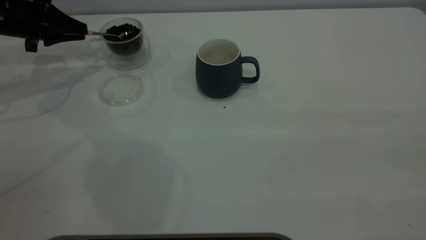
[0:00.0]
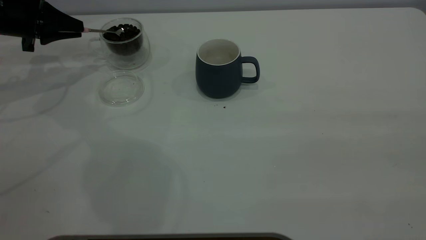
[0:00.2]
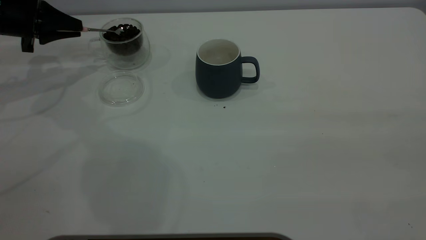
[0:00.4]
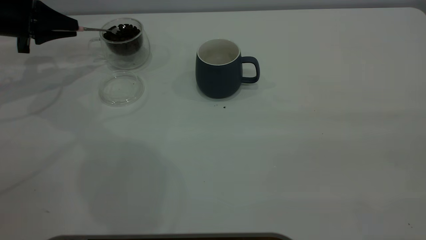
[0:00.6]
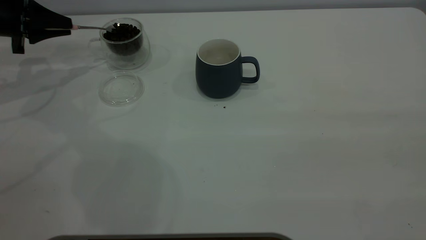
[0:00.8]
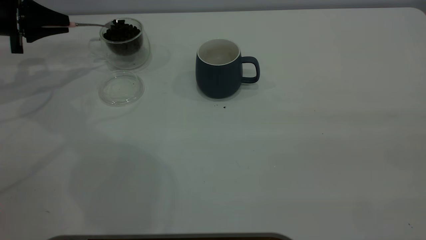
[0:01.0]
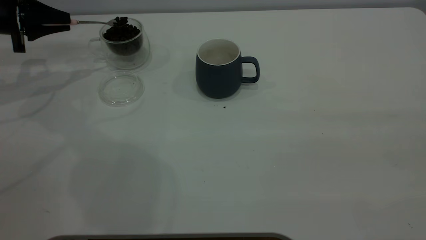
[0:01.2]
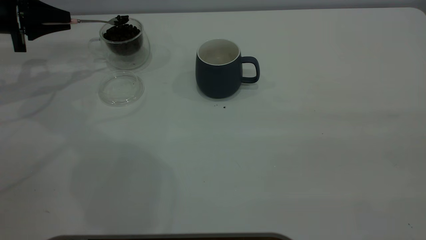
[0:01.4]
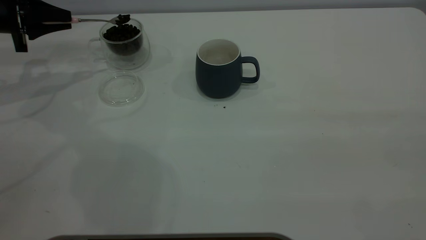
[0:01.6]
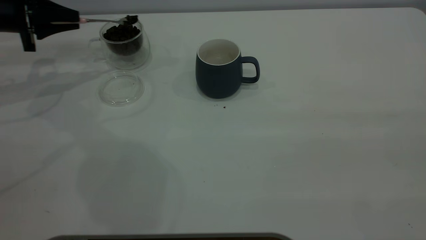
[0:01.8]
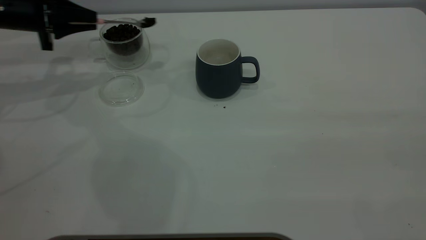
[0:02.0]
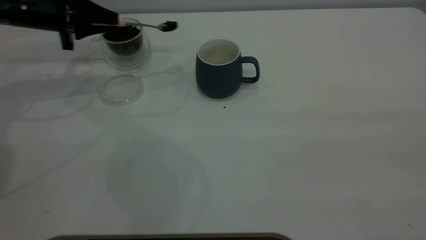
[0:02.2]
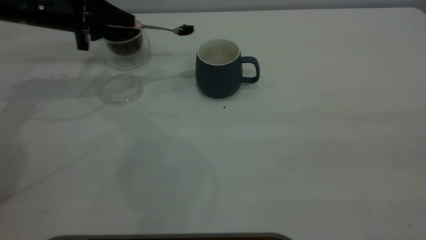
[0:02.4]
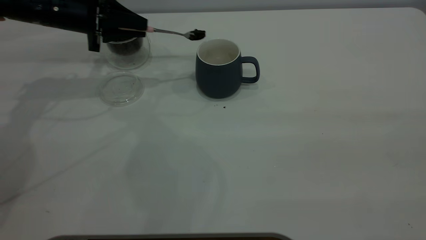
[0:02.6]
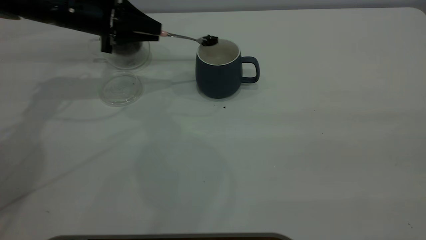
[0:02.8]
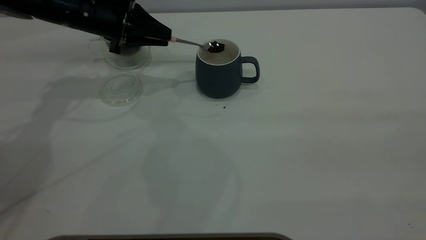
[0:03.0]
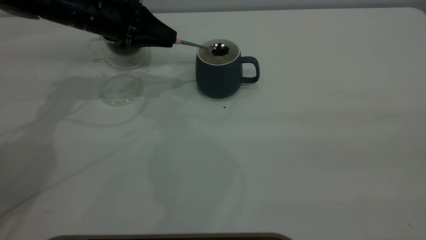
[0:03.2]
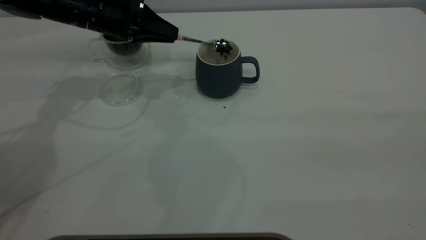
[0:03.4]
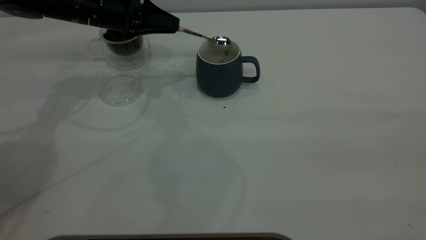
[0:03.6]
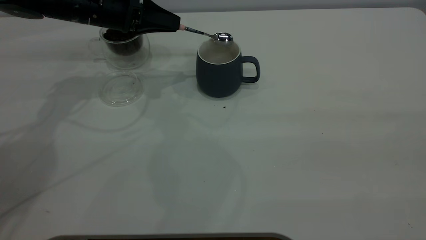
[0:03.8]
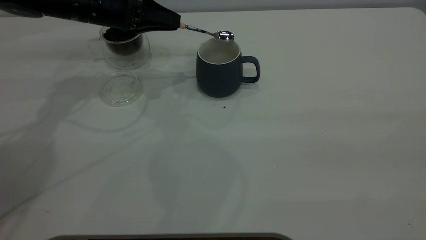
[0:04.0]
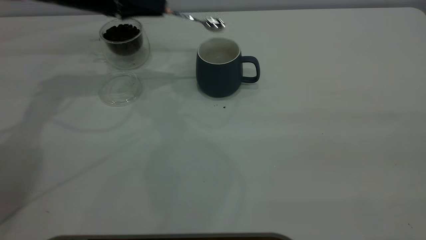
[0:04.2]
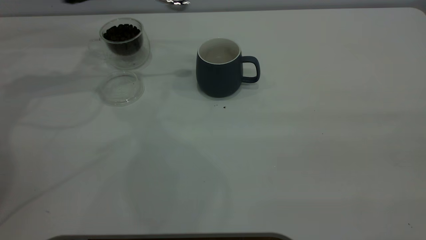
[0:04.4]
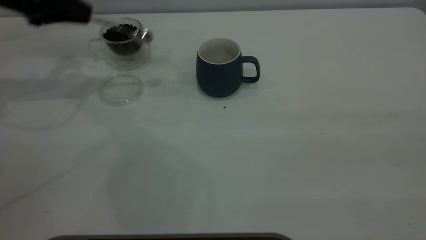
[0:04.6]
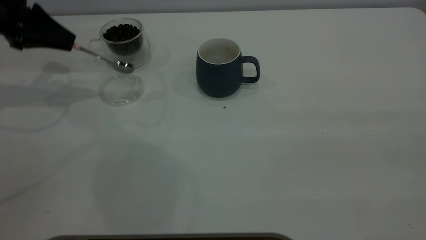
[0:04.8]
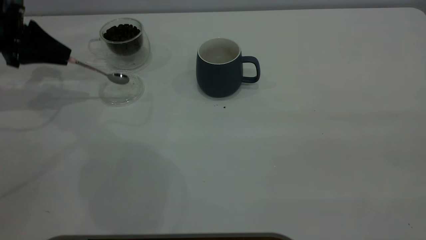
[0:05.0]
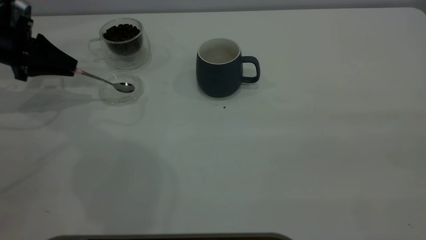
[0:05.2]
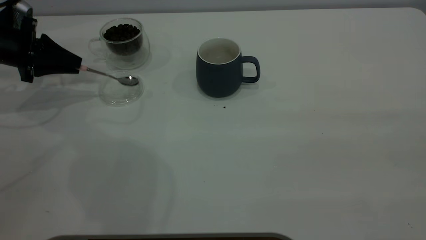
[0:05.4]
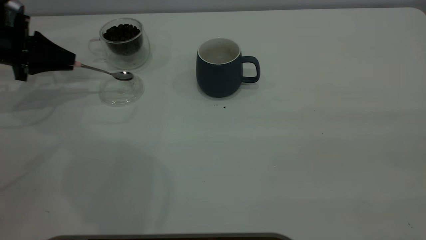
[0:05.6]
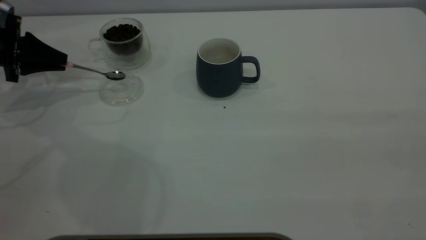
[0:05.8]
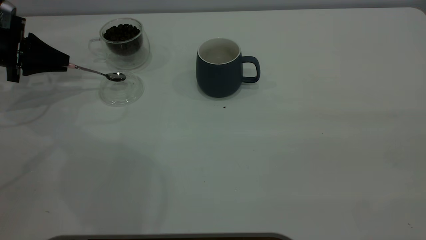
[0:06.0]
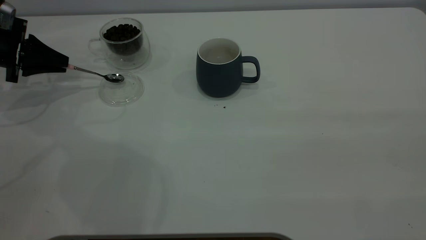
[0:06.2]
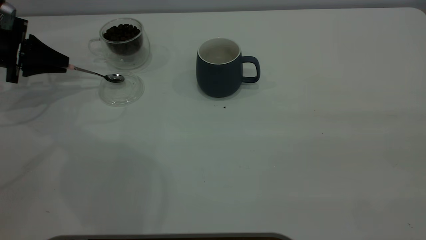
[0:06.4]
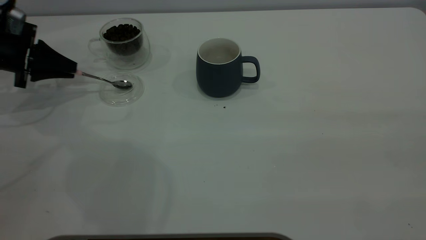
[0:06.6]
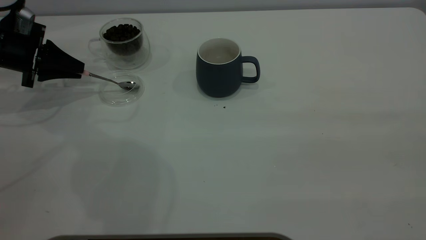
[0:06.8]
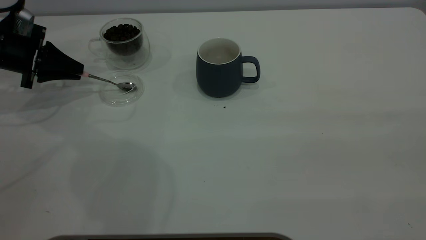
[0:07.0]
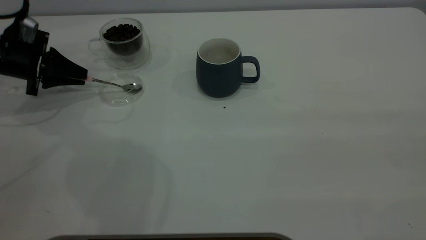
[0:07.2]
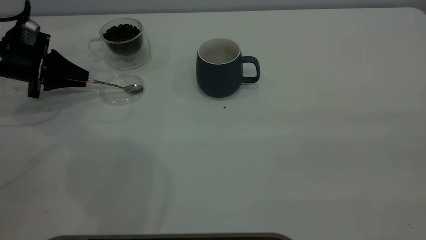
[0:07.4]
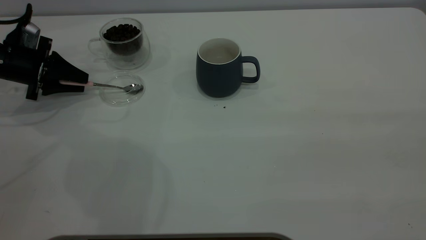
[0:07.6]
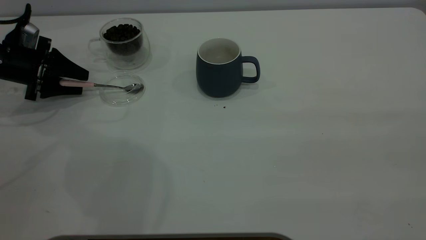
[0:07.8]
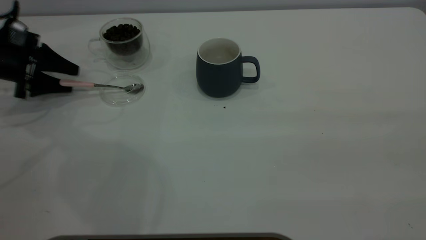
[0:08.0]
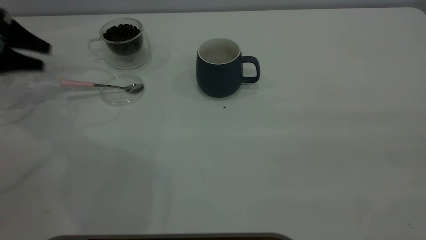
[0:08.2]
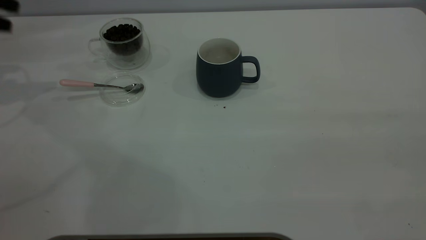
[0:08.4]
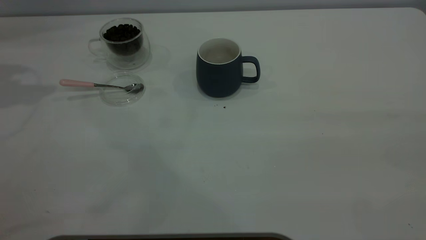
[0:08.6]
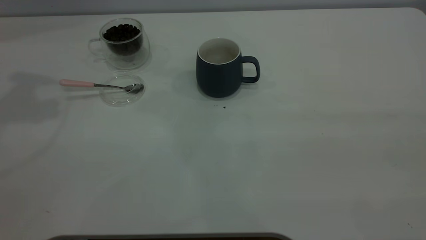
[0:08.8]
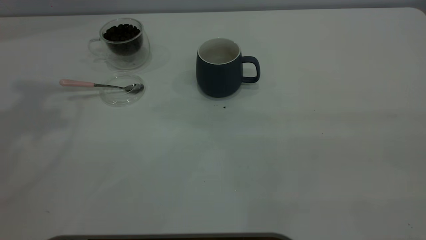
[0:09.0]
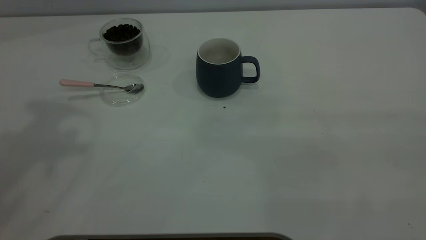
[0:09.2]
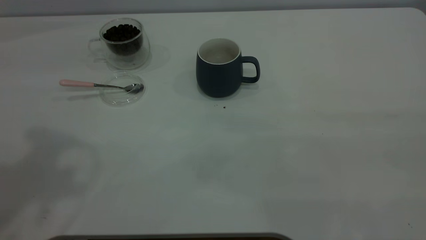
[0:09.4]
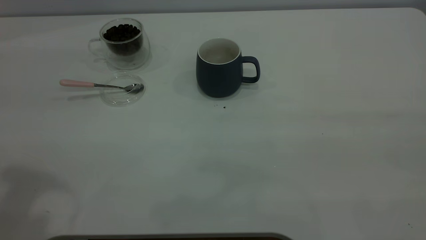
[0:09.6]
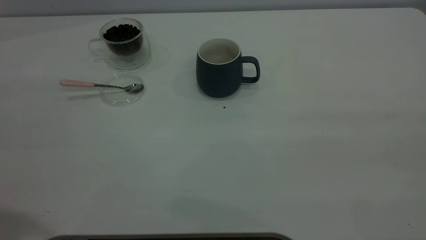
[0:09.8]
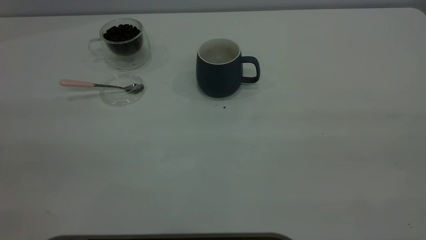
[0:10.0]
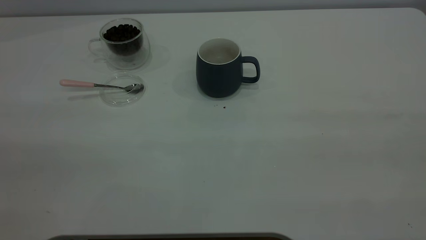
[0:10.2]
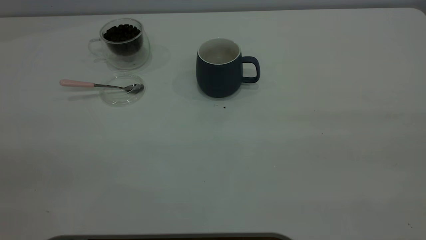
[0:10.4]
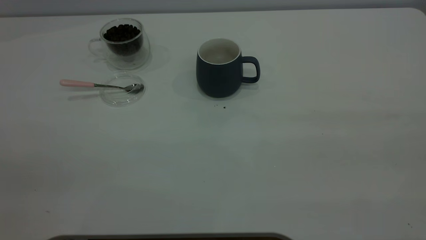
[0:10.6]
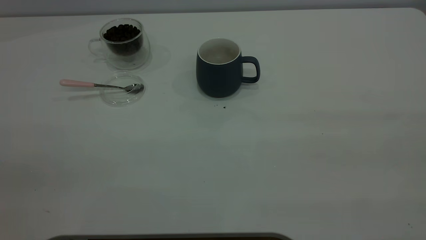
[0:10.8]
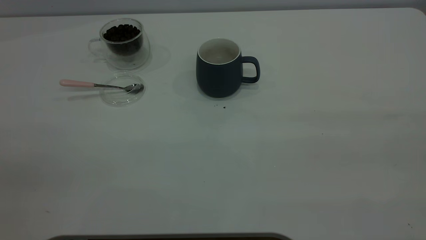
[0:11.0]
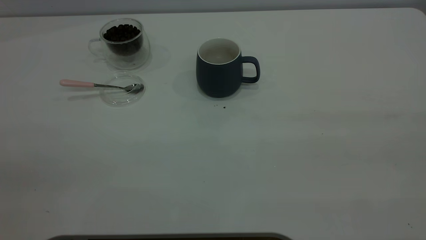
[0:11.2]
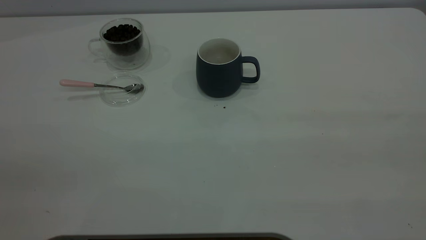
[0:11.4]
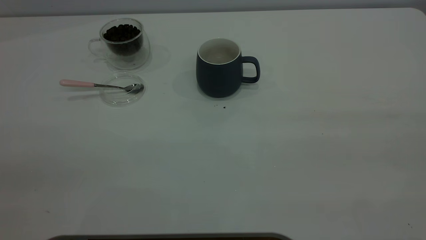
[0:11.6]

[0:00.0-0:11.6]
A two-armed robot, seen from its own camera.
Task of the whole recording: the right gripper place the grey cup in the center of the table, the left gripper take the pink spoon from the cup lid and scoop out the coffee beans from the coffee cup and put them into the grey cup, the left gripper put the spoon back into the cup lid.
Step, 0:00.0 to 0:04.0: Scoop a spoonful of beans into the cup.
Step, 0:04.4 to 0:08.0: Place the spoon back in its original place.
0:00.0 to 0:01.4: The grippers move only a little.
0:01.4 to 0:02.8: The left gripper shifts roughly 15 cm to the right.
0:02.8 to 0:04.4: The left gripper is displaced to the left and upward by roughly 10 cm.
0:04.4 to 0:05.8: The left gripper is displaced to the left and downward by approximately 15 cm.
0:05.8 to 0:07.2: The grippers make only small movements.
0:07.2 to 0:08.8: The left gripper heads upward, covering about 35 cm, and opens its fingers.
